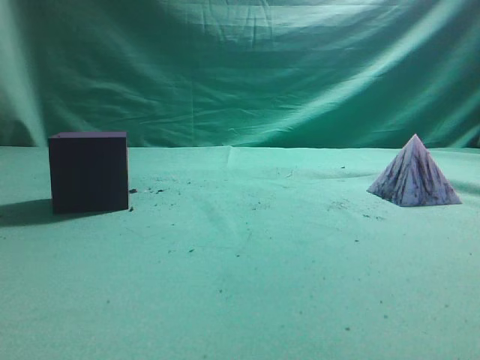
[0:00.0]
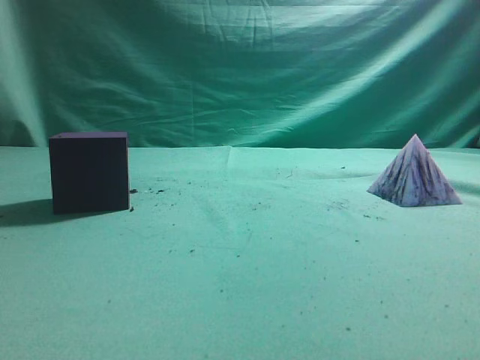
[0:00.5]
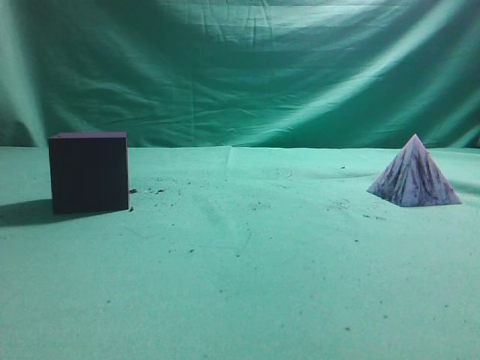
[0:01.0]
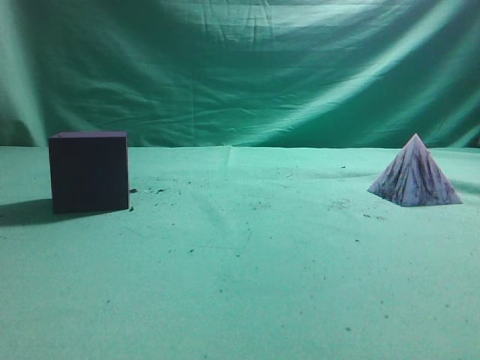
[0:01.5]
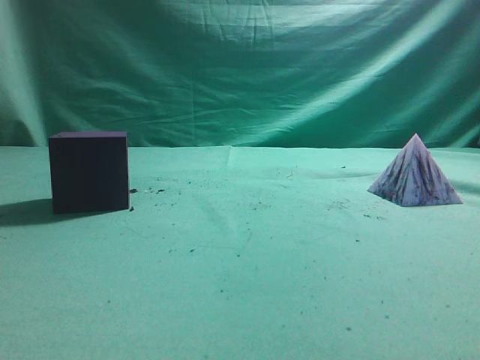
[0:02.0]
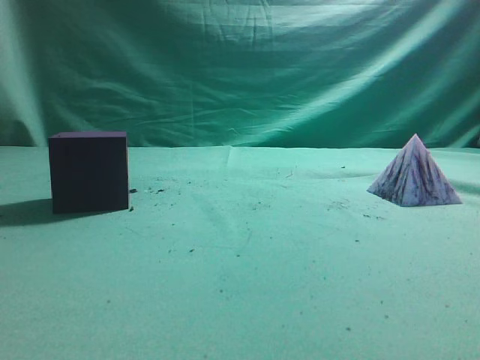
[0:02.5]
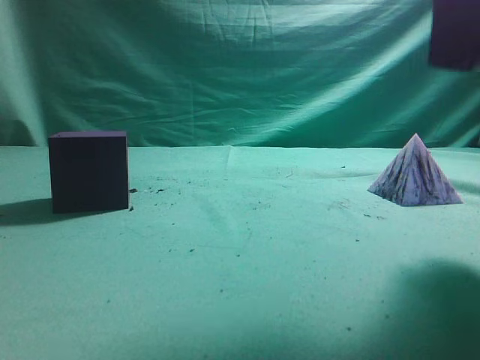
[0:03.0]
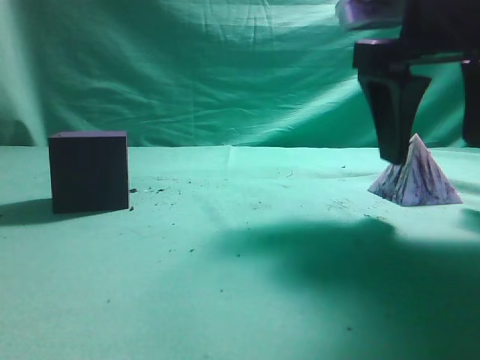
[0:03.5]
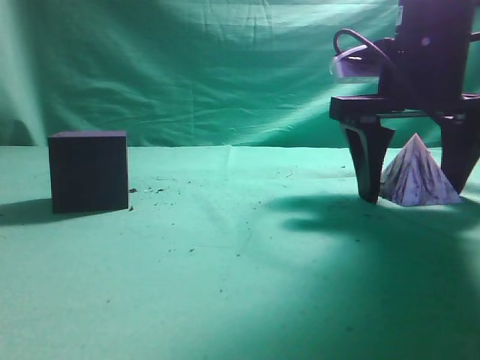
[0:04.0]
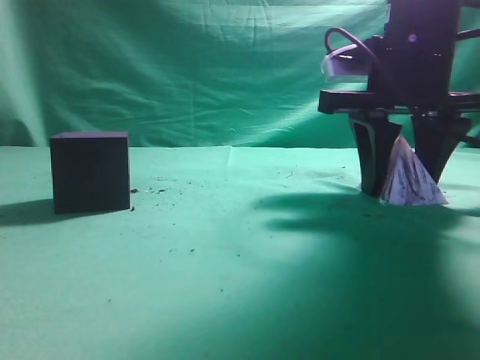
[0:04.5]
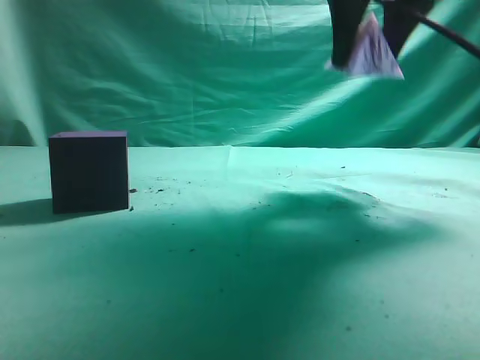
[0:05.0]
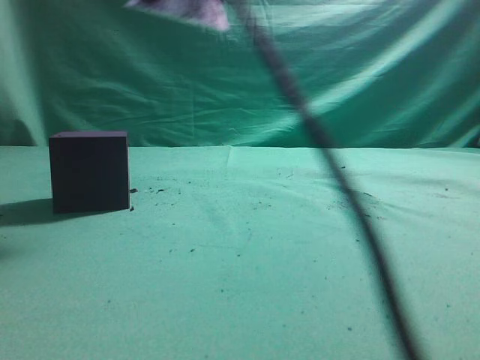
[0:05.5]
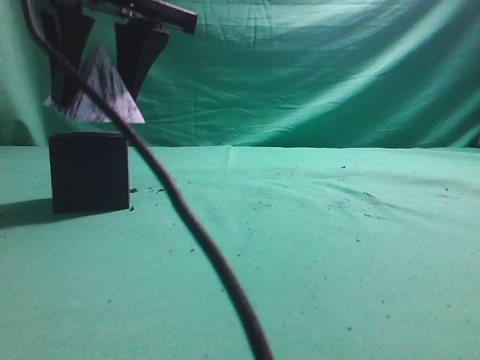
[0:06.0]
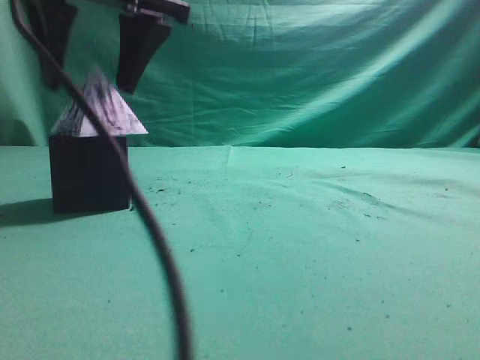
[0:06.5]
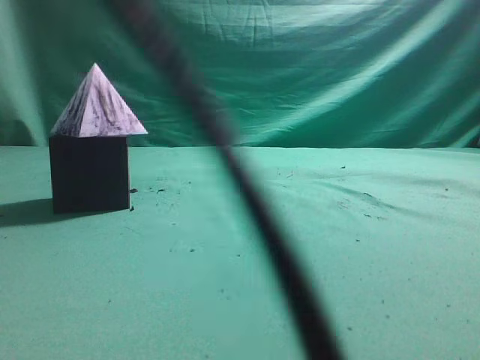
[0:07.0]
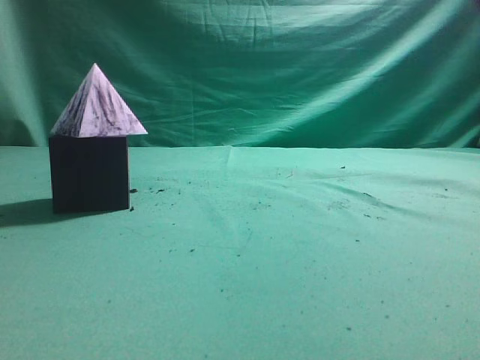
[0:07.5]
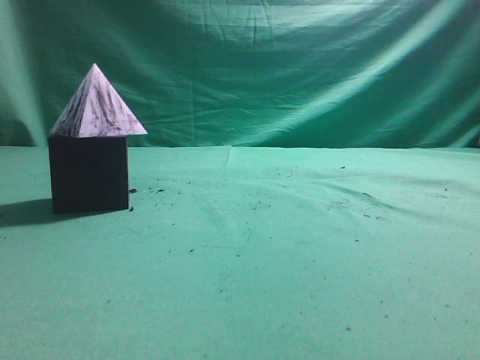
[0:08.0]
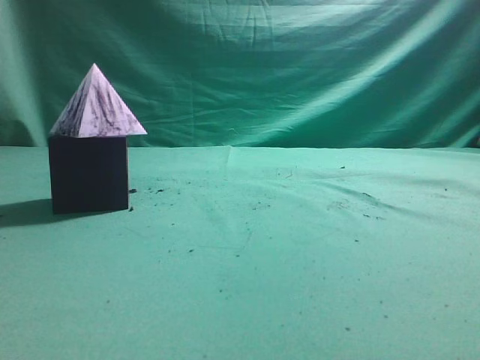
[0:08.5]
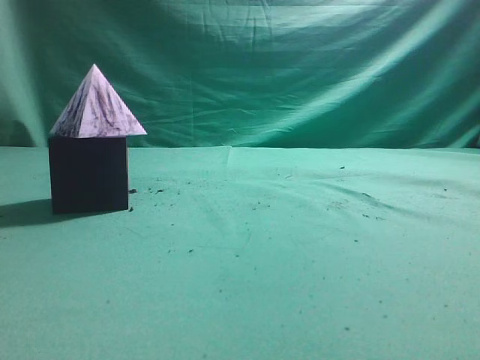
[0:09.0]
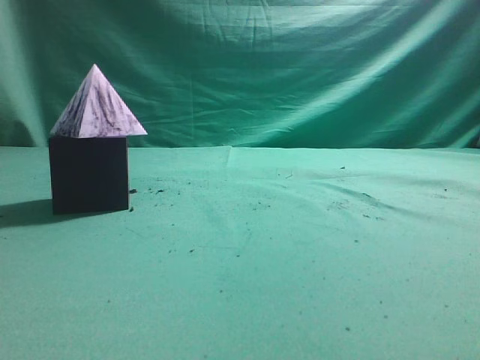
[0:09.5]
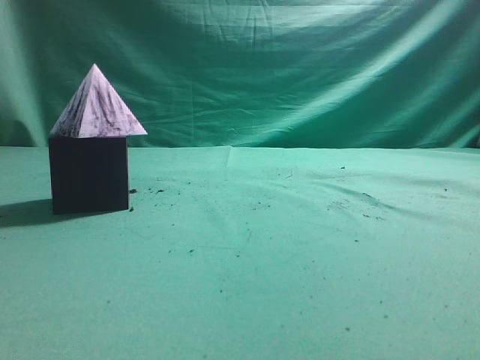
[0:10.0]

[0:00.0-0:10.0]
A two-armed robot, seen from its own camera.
Task of the whole recording: pick up the square pyramid from the table and place it on the cube block.
Step, 0:00.0 to 0:04.5: Grasp the triangular block.
Step, 0:05.0 to 0:06.5: Place the block onto the cube-shaped block.
0:02.0 to 0:04.0: The right gripper shifts roughly 30 cm forward, downward and to the left, and opens.
0:04.0 to 0:06.0: The right gripper travels to the left by about 25 cm, and closes its fingers.
0:06.0 to 0:08.0: The right gripper goes roughly 30 cm to the right, upward and backward, and closes up.
